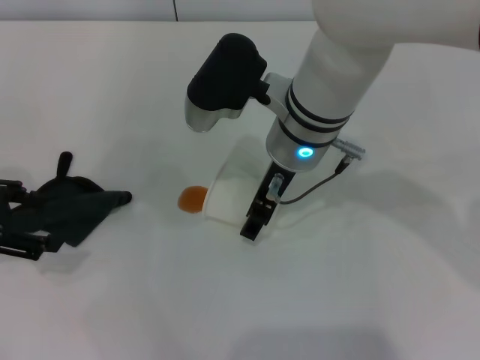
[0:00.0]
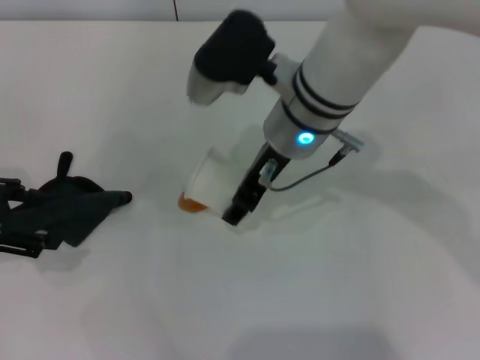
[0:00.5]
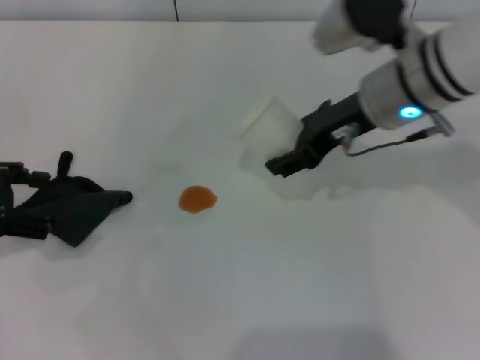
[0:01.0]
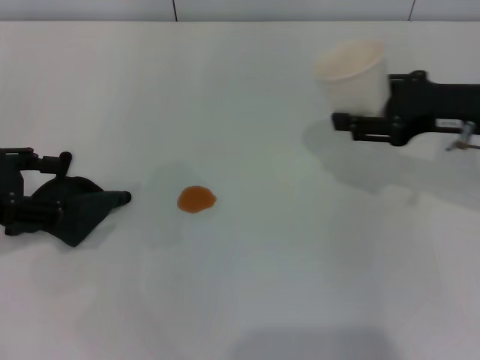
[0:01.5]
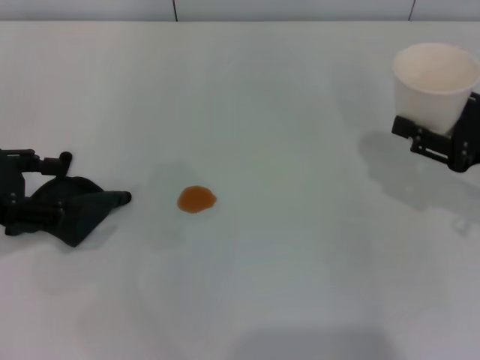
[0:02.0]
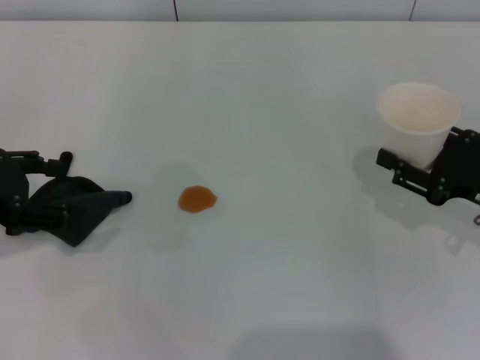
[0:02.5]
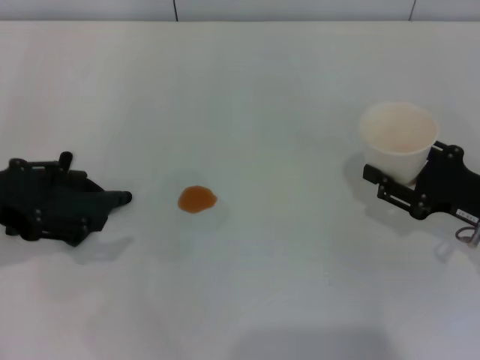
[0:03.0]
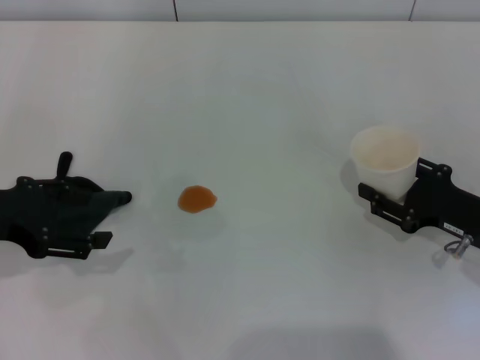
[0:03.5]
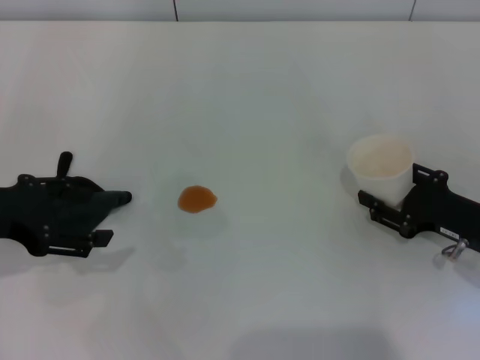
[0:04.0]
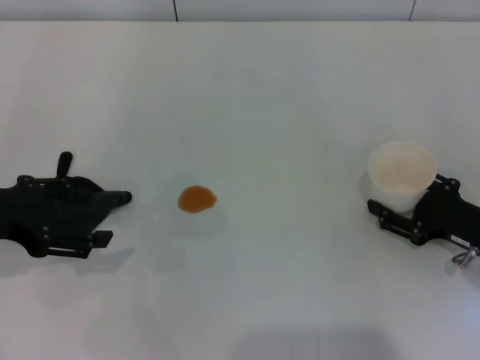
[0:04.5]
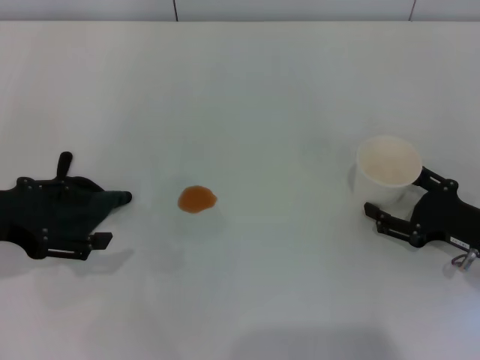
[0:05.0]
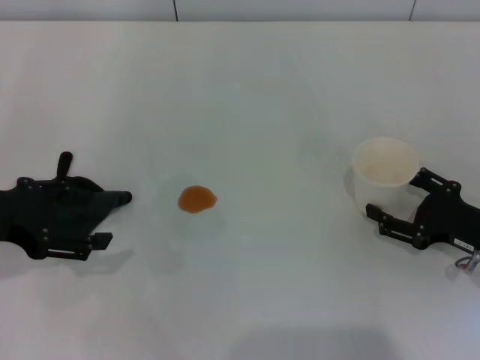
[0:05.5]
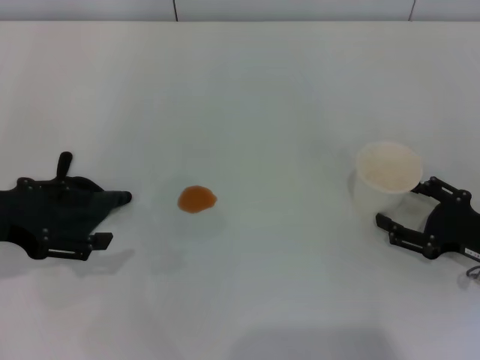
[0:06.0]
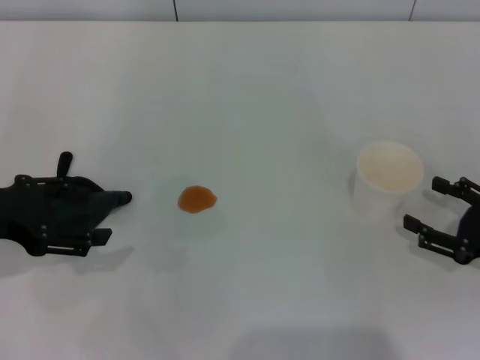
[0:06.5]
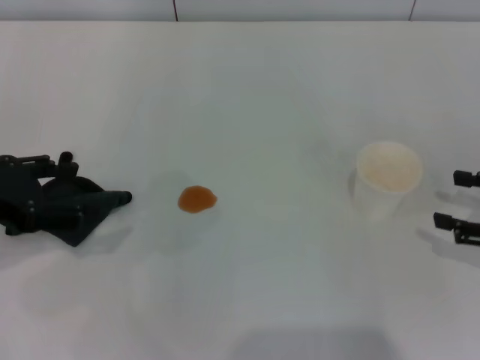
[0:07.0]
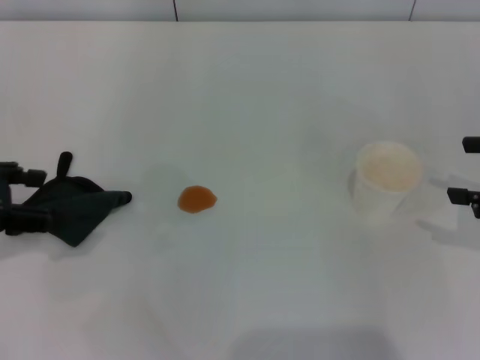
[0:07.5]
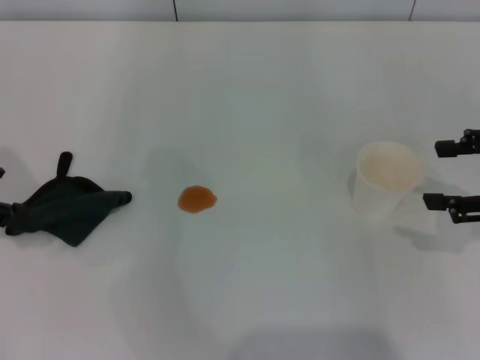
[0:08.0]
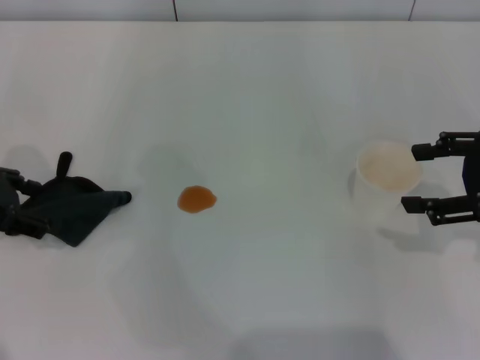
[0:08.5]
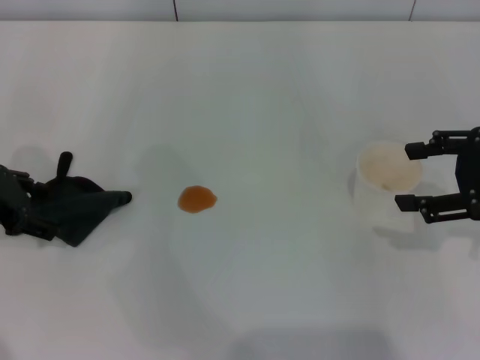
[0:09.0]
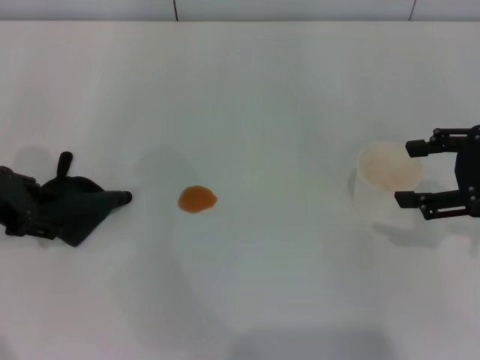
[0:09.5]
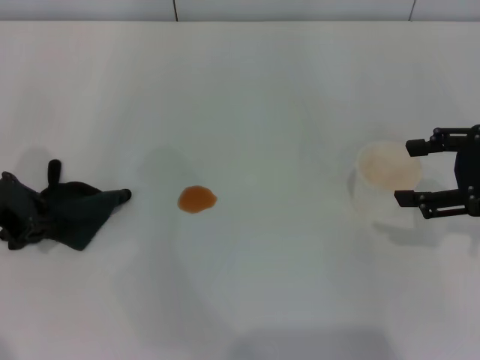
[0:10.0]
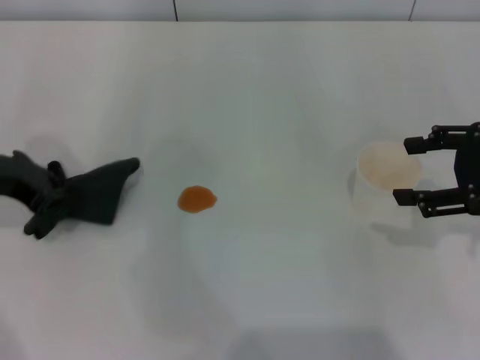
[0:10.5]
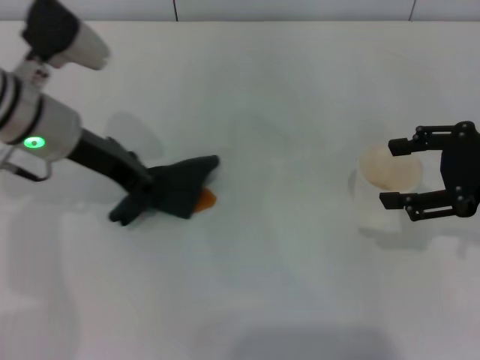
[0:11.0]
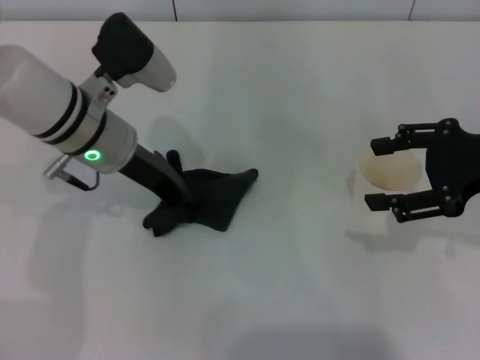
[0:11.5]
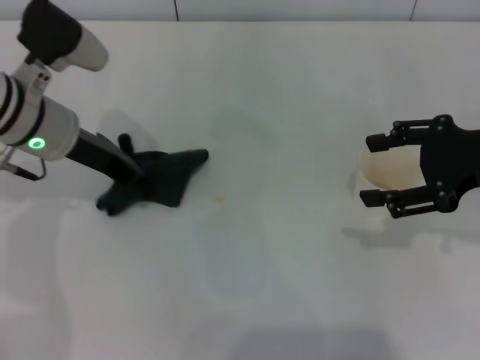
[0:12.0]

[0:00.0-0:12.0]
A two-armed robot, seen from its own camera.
Step, 0:00.5 to 0:06.0: Stand the paper cup upright with the right gripper.
Step, 0:06.5 to 0:10.0: Grasp the rag with the left gripper.
0:00.0 to 0:02.0: The right gripper goes roughly 30 cm to the right, and closes.
0:02.0 to 0:04.0: The right gripper is displaced downward by roughly 10 cm.
0:04.0 to 0:06.0: The right gripper opens.
0:06.0 to 0:08.0: The left gripper ends up some 5 cm from where it was. Meanwhile the right gripper shifts roughly 15 cm upward.
0:08.0 to 0:10.0: The left gripper goes approximately 5 cm downward, and closes.
0:10.0 to 0:12.0: The left gripper travels to the right and forward by about 10 cm, and closes up.

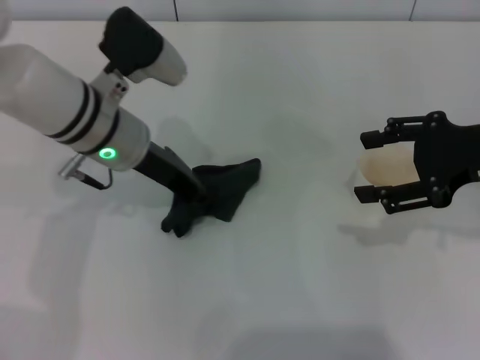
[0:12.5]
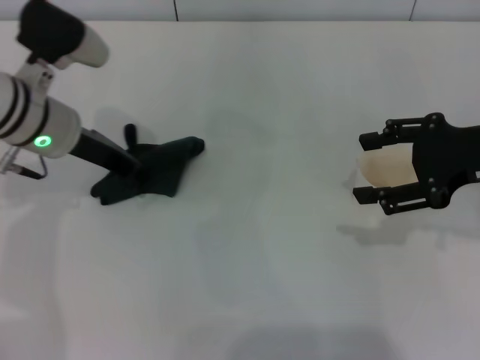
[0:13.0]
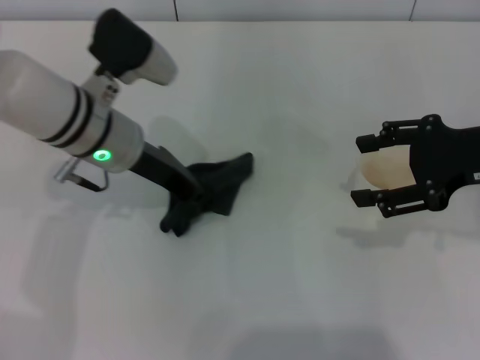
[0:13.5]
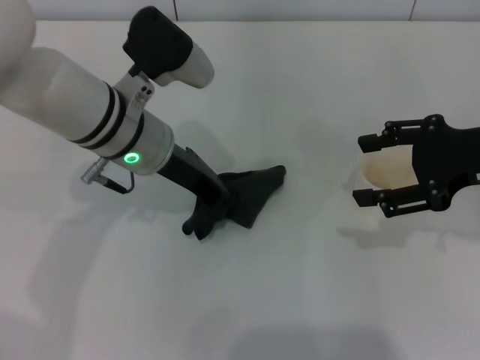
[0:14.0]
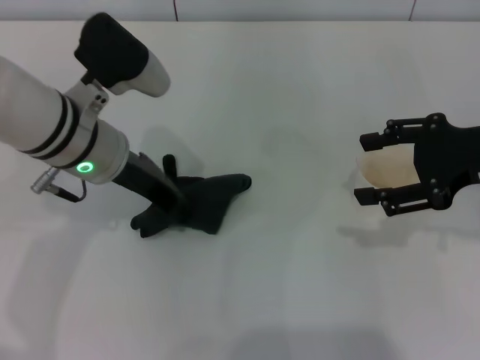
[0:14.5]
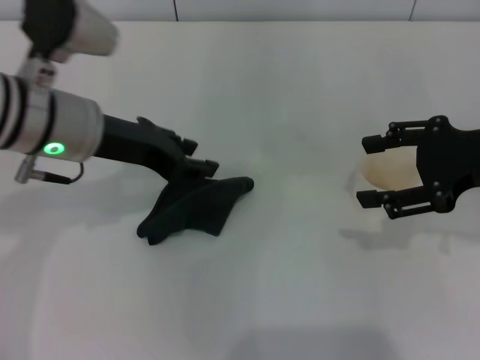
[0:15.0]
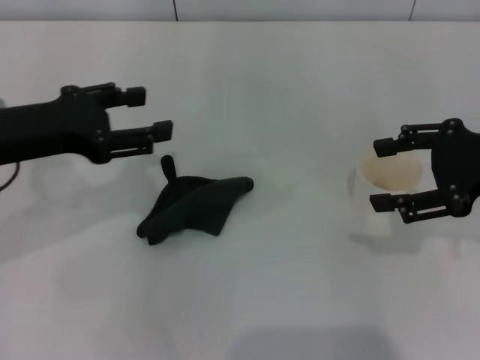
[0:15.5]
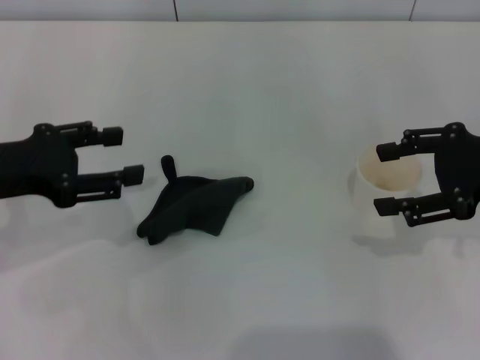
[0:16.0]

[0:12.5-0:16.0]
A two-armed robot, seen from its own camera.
0:12.5 to 0:14.5: The left gripper moves some 5 cm to the left and comes back.
0:14.5 to 0:16.0: The left gripper heads to the left and backward, covering some 15 cm, and opens its fingers.

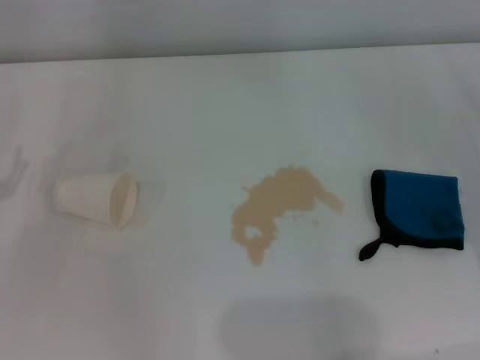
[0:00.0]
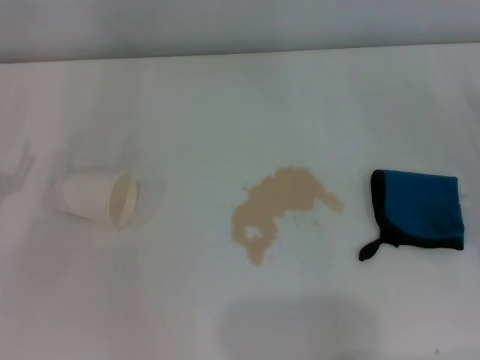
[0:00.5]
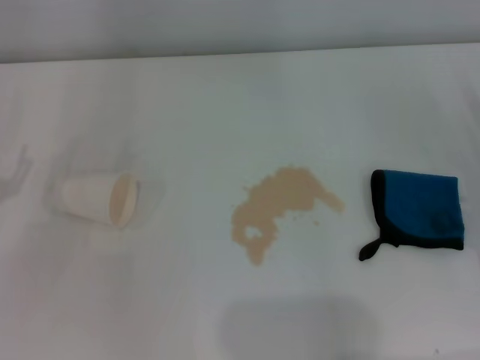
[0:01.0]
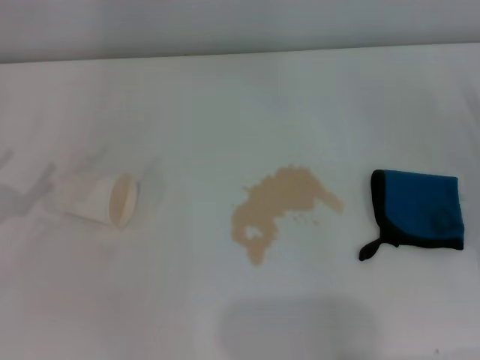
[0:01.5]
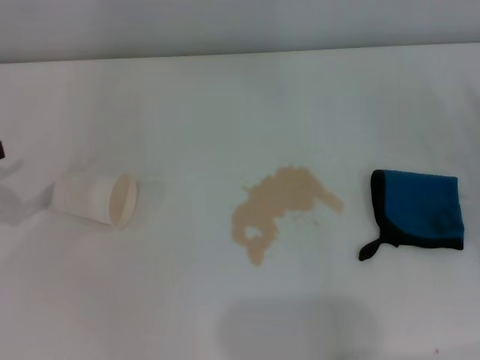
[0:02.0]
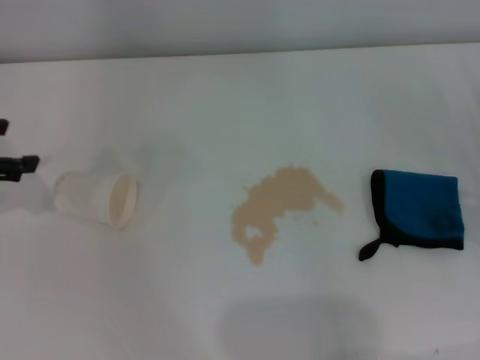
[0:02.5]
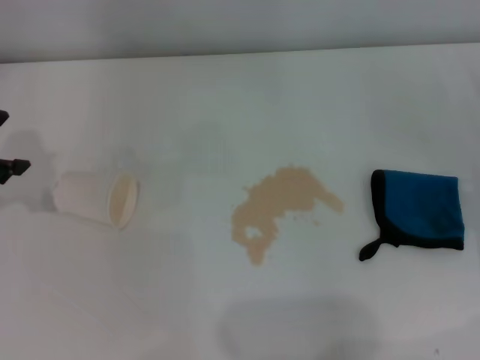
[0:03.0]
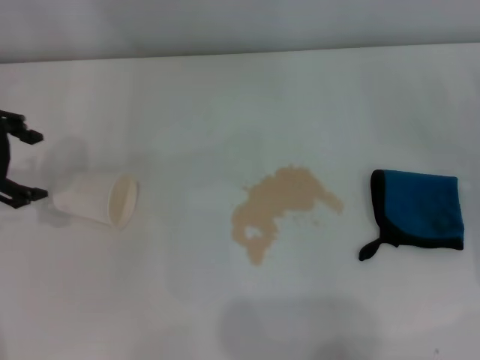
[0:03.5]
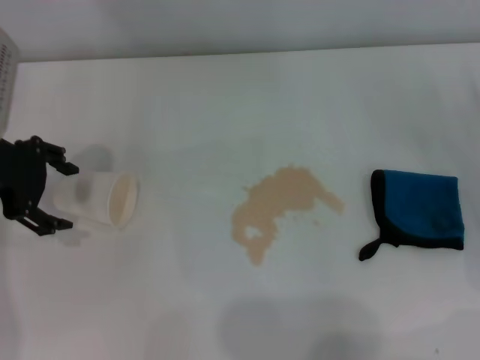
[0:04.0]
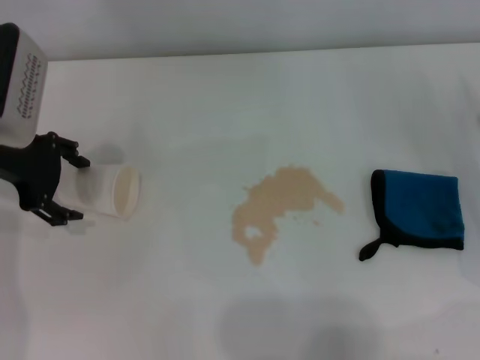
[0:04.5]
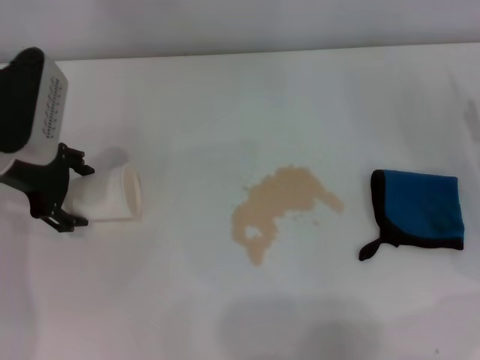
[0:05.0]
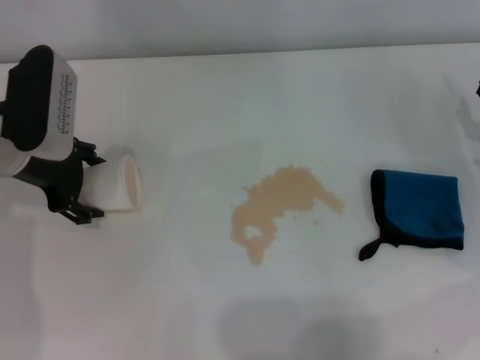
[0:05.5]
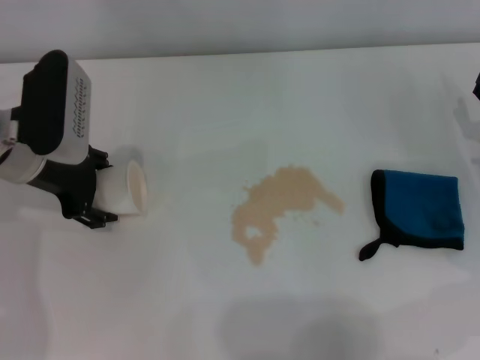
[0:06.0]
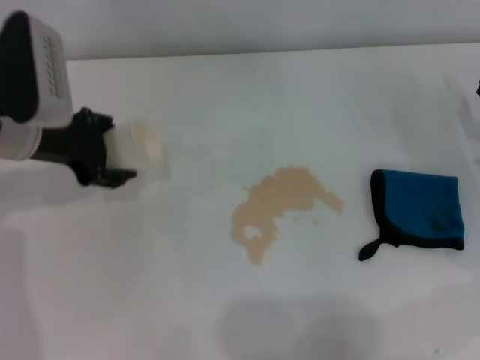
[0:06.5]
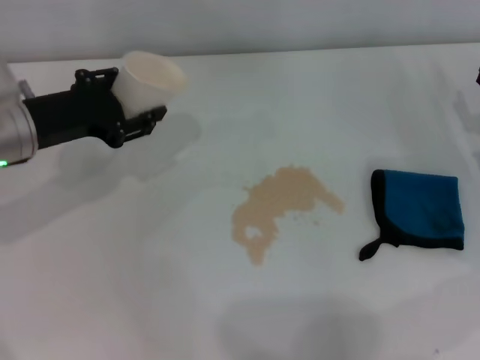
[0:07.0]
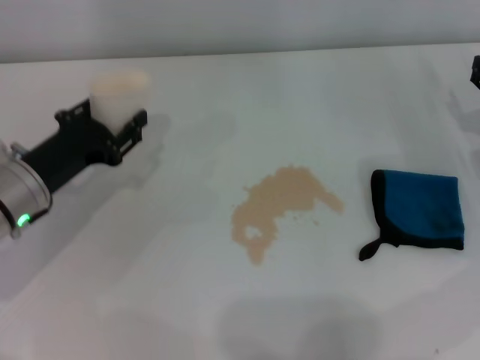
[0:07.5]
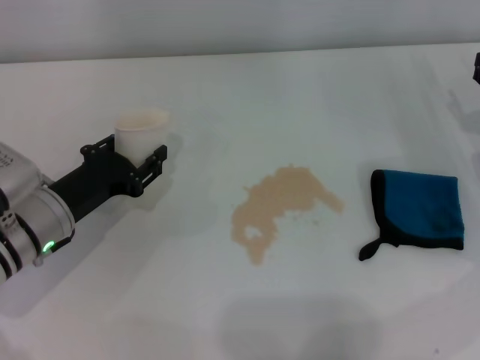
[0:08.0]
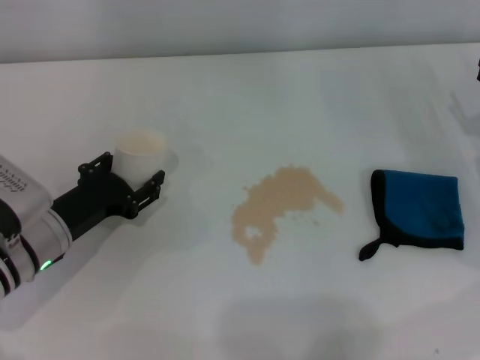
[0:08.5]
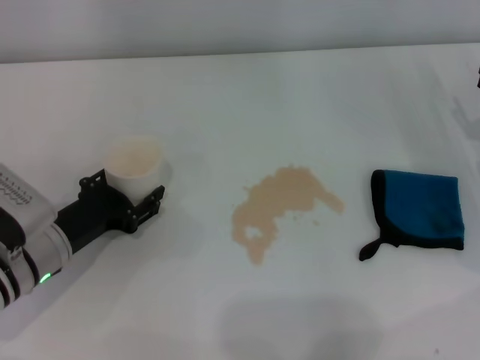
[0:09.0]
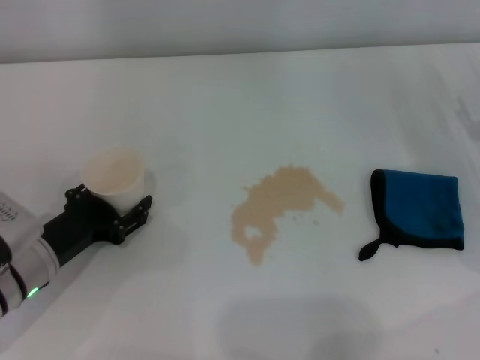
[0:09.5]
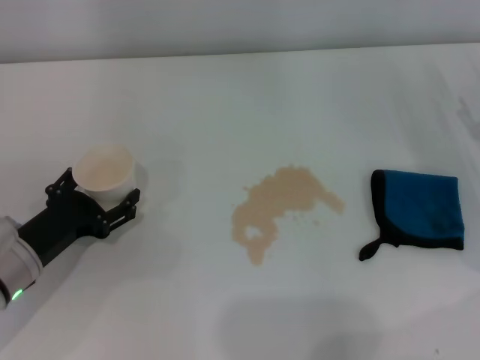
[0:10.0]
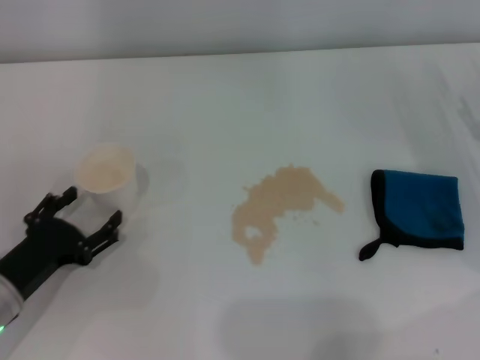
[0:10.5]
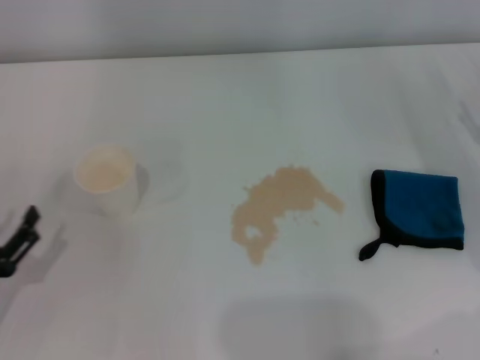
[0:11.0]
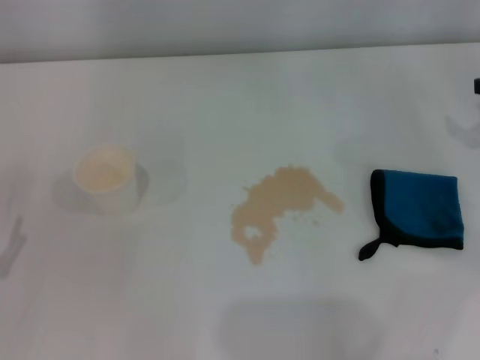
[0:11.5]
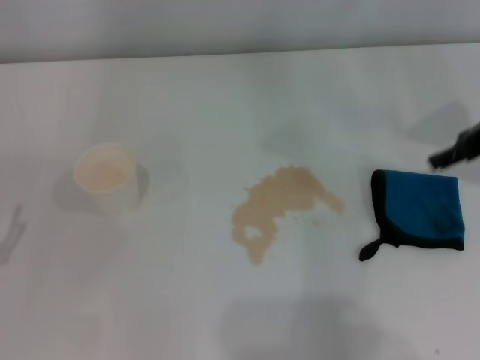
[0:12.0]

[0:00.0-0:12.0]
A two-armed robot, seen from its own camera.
Step, 0:00.0 to 0:06.0: Grasp the paper cup with the left gripper.
Step, 0:06.5 to 0:09.5: Stand the paper cup upright with the left gripper.
0:02.0 to 0:04.0: The left gripper is displaced to the right and forward by approximately 15 cm.
0:04.0 to 0:06.0: The left gripper is displaced downward by some 5 cm.
0:06.0 to 0:08.0: The left gripper shifts some 10 cm downward and backward, and closes up.
0:08.0 to 0:10.0: The left gripper ends up roughly 5 cm from where it was, and opens its fingers.
0:10.0 to 0:12.0: The right gripper moves upward and to the left, some 15 cm. Meanwhile the left gripper heads backward and to the left, covering some 10 cm.
